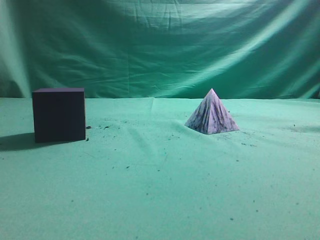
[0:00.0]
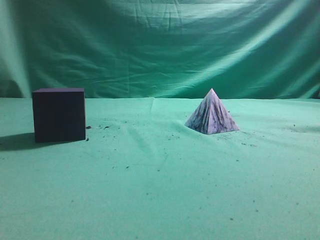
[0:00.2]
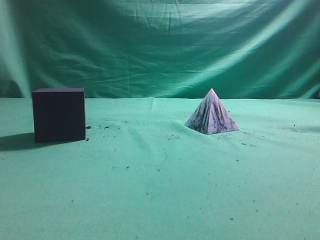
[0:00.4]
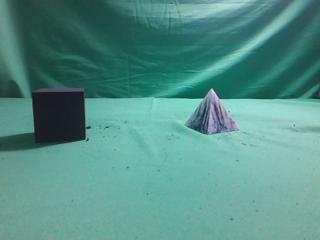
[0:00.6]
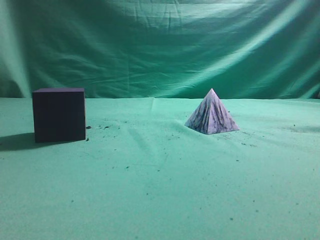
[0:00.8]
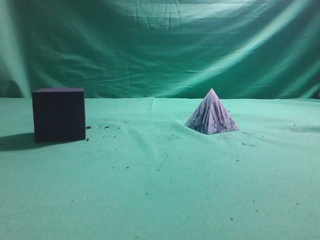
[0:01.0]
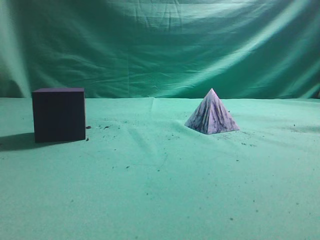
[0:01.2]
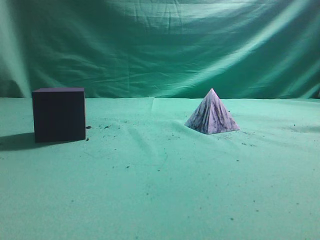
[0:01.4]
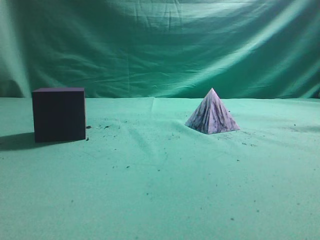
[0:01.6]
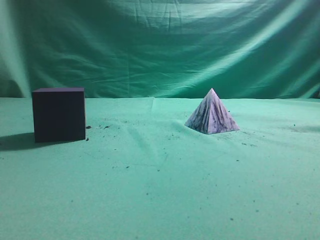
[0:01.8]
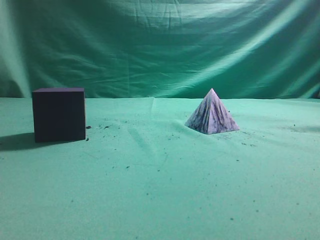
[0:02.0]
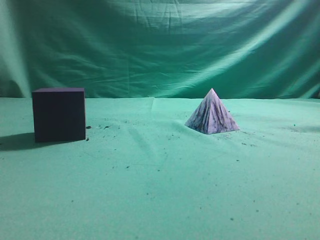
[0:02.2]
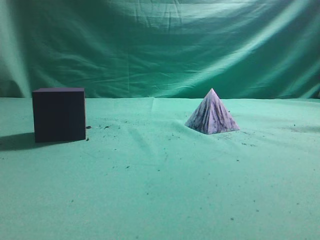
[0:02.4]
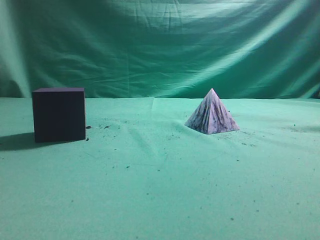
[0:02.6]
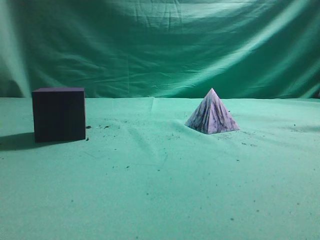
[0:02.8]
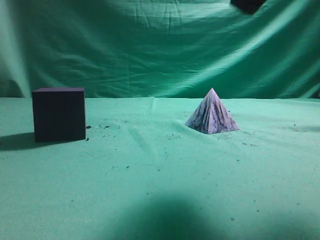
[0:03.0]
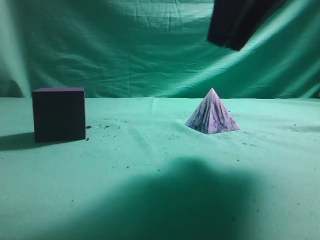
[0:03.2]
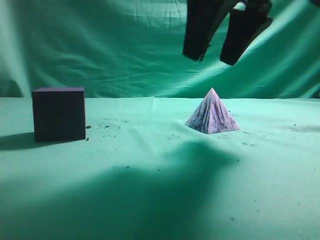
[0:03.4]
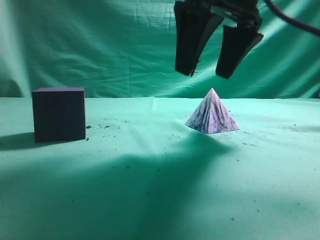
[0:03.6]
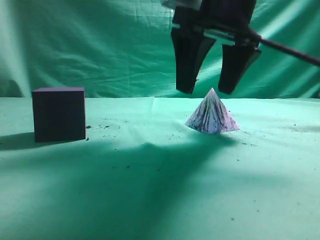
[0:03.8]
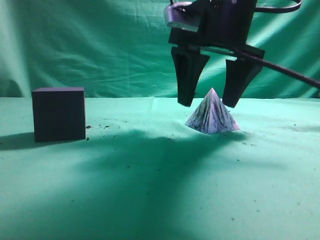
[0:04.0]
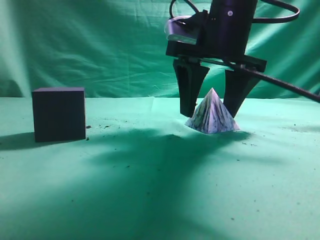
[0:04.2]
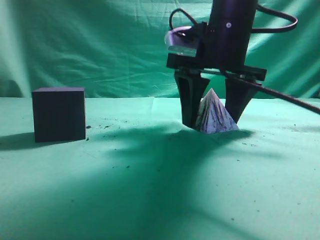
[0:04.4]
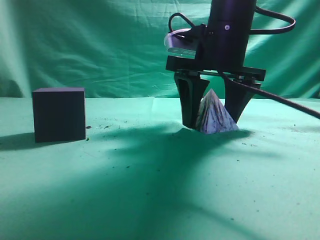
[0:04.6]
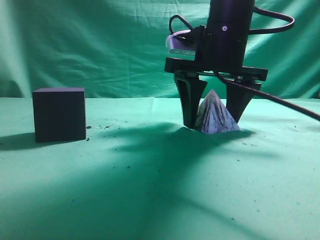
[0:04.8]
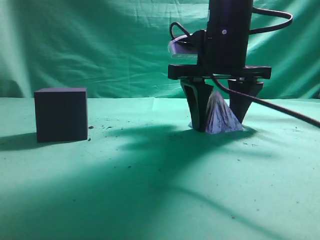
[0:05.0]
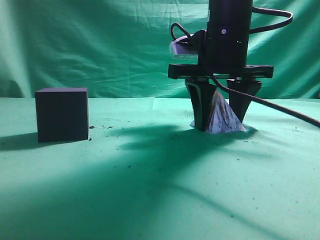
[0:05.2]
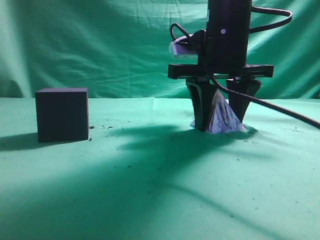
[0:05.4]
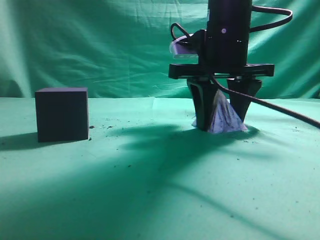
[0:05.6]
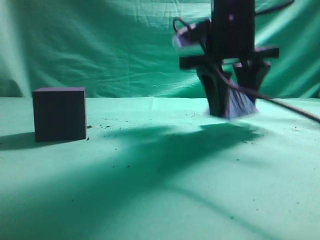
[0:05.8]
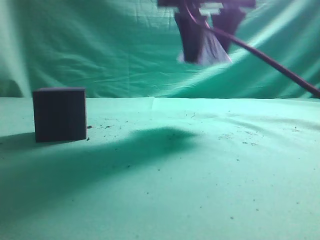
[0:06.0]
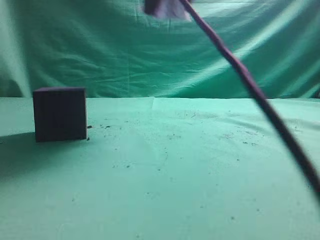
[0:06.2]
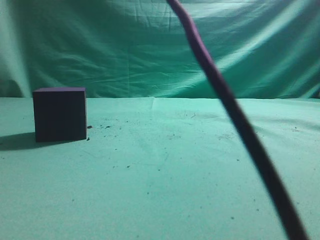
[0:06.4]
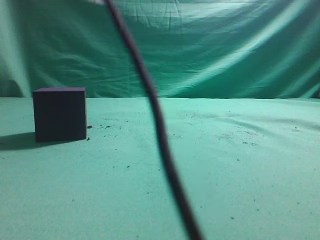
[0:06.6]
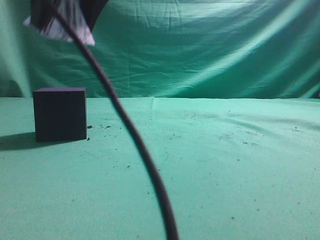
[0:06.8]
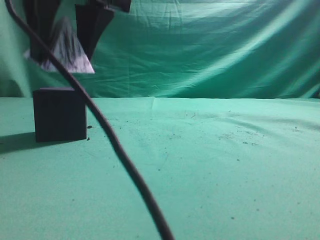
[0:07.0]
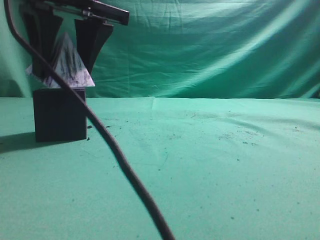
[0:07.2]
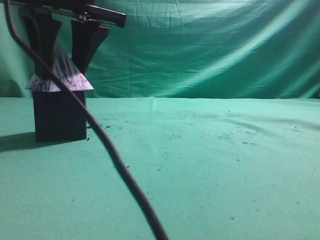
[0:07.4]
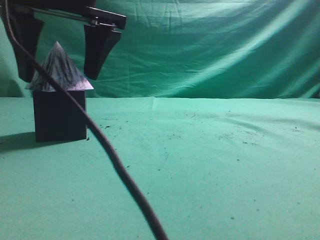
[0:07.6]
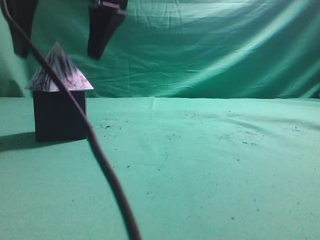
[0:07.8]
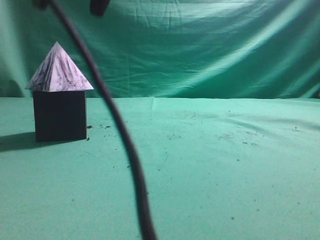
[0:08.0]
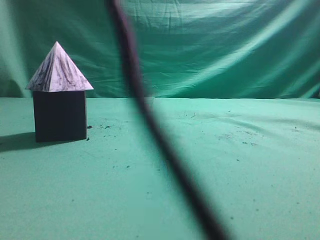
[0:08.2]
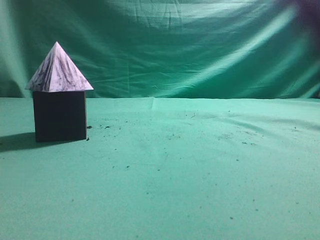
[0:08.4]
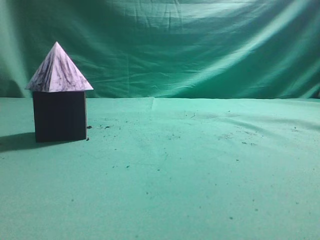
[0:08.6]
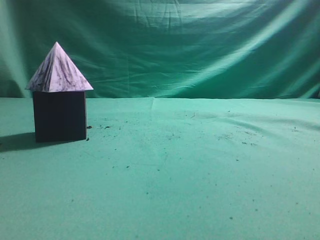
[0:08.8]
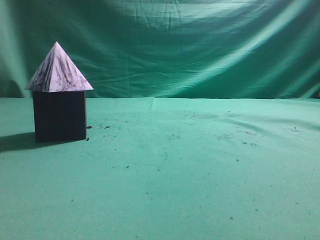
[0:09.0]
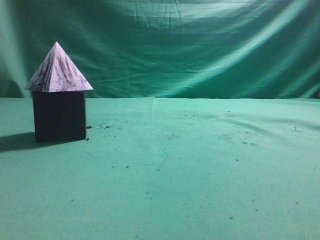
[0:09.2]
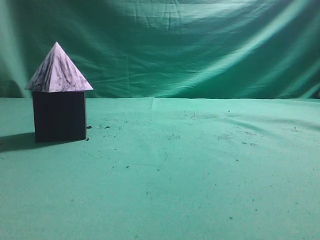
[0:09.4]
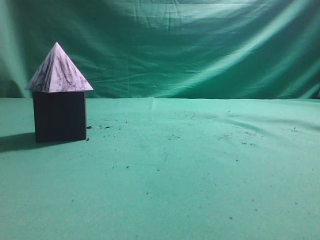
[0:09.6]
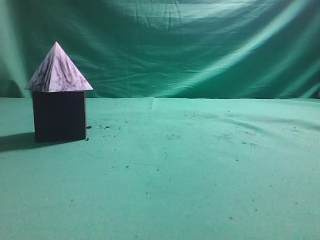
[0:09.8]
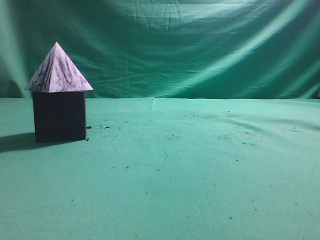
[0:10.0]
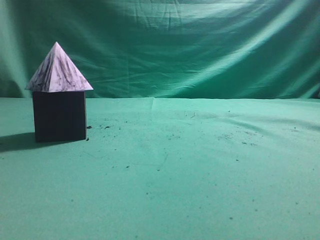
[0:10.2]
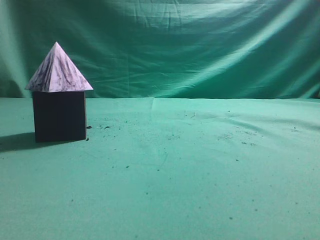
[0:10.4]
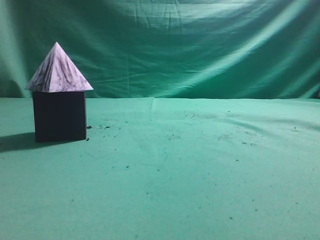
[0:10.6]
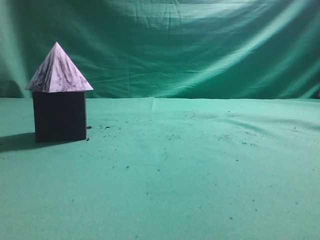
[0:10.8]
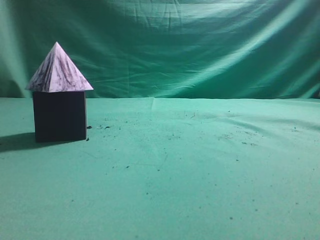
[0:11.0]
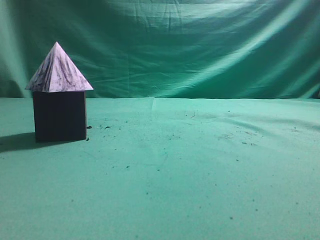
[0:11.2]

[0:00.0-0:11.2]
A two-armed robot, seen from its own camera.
Task of the whole recording: pick up the square pyramid from the table and place it on the cube block.
Step, 0:00.0 to 0:05.8: Grasp the triangular block.
Step, 0:06.0 to 0:07.8: Place the block onto the cube-shaped block.
0:01.6 to 0:03.2: The right gripper moves forward and to the left, roughly 25 cm, and opens.
0:03.2 to 0:04.8: The right gripper heads forward and downward, covering approximately 15 cm, and opens up.
0:04.8 to 0:06.4: The right gripper goes some 20 cm upward and to the left.
0:06.4 to 0:08.0: The right gripper is displaced to the left by approximately 5 cm.
0:08.0 to 0:09.6: The right gripper moves to the right, backward and upward, some 35 cm, and closes up.

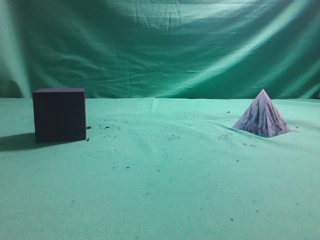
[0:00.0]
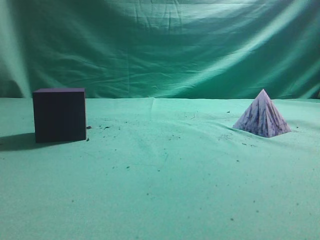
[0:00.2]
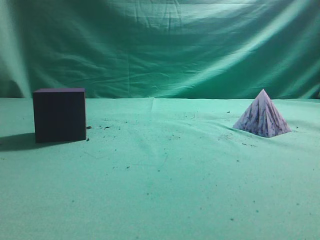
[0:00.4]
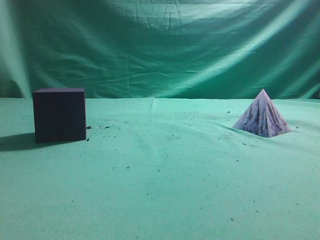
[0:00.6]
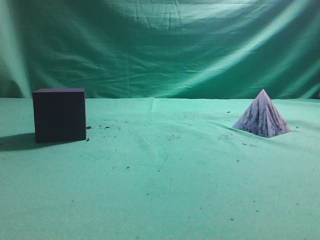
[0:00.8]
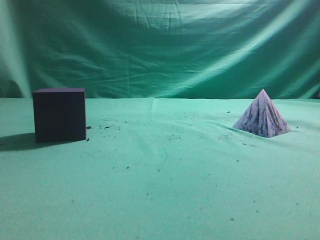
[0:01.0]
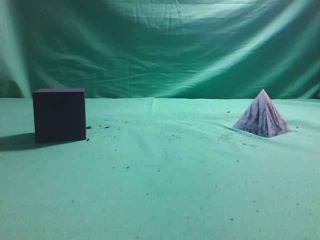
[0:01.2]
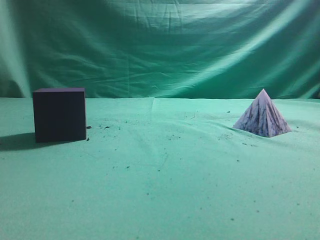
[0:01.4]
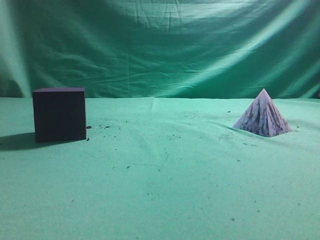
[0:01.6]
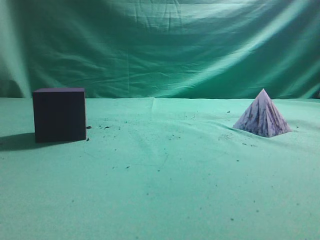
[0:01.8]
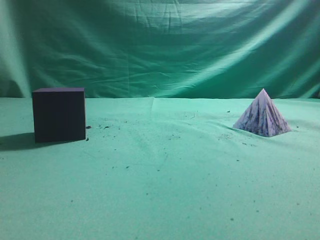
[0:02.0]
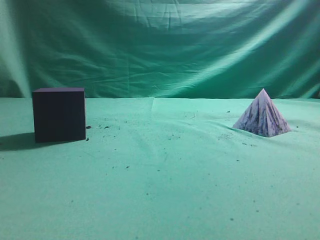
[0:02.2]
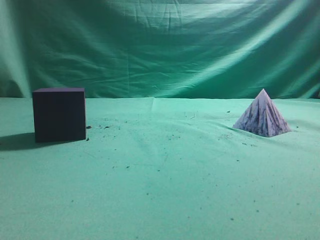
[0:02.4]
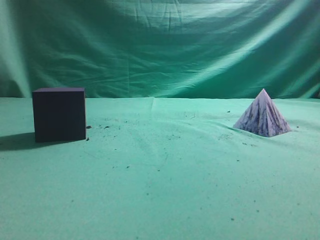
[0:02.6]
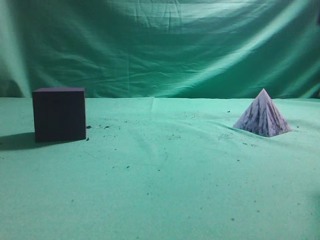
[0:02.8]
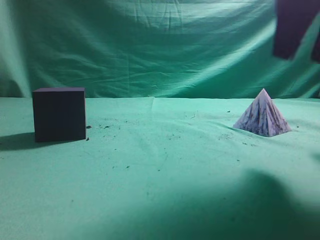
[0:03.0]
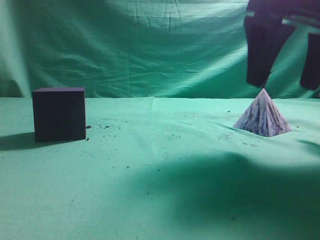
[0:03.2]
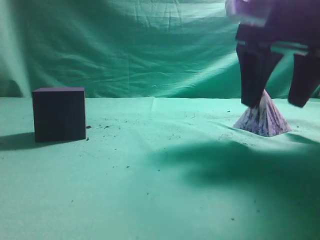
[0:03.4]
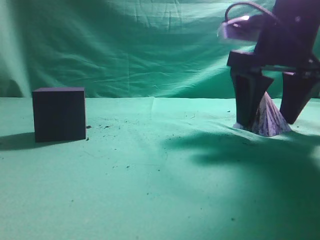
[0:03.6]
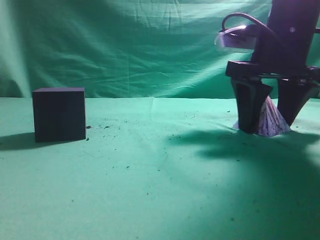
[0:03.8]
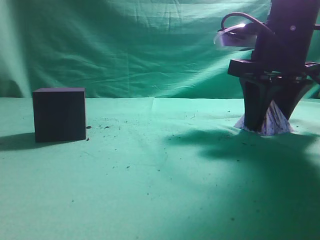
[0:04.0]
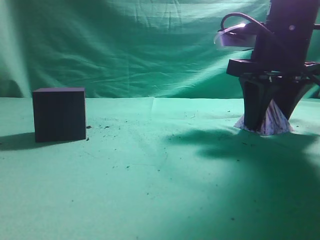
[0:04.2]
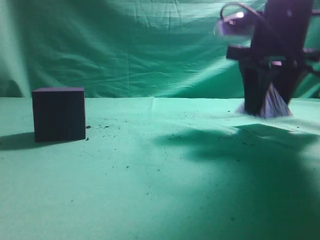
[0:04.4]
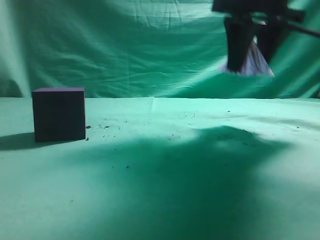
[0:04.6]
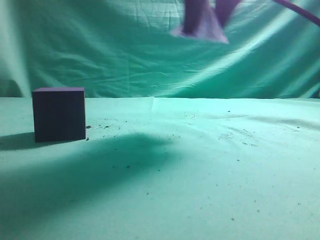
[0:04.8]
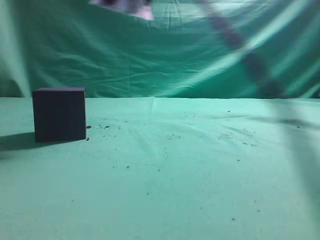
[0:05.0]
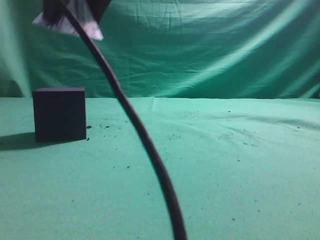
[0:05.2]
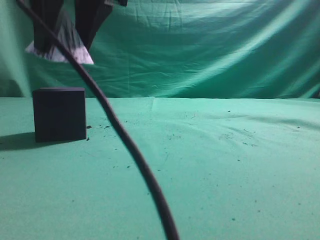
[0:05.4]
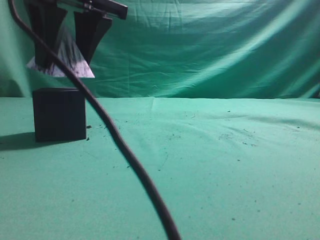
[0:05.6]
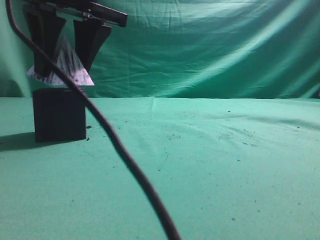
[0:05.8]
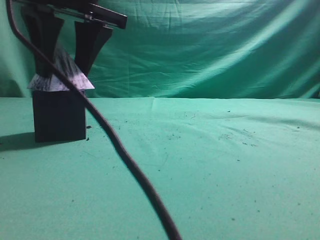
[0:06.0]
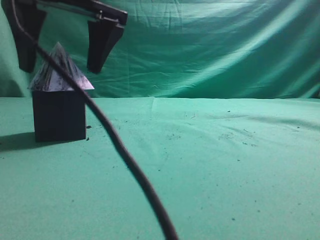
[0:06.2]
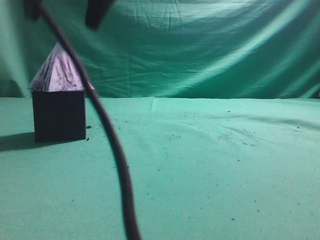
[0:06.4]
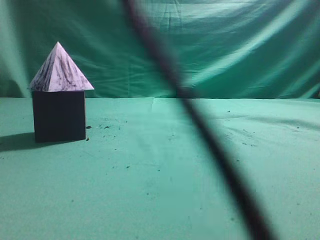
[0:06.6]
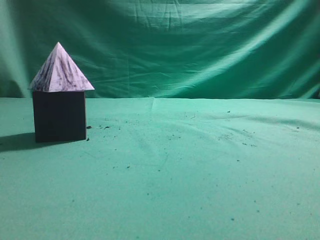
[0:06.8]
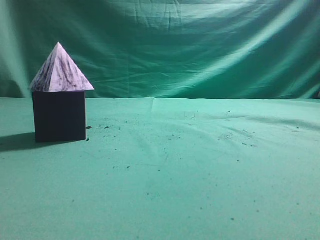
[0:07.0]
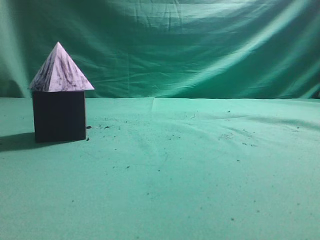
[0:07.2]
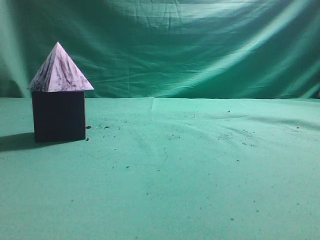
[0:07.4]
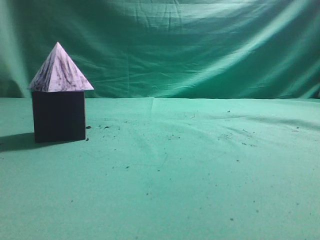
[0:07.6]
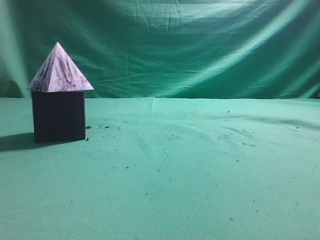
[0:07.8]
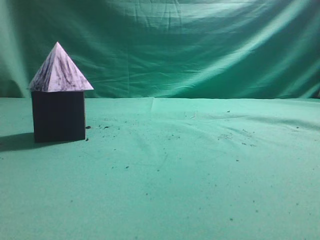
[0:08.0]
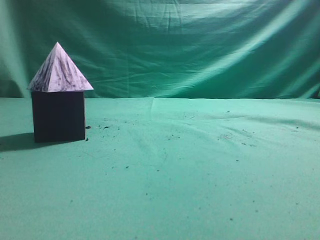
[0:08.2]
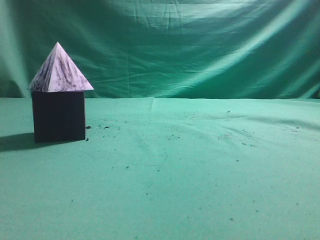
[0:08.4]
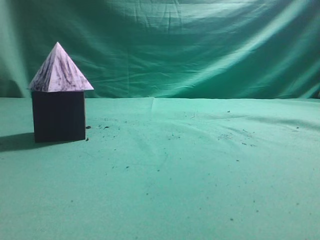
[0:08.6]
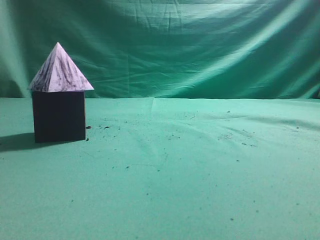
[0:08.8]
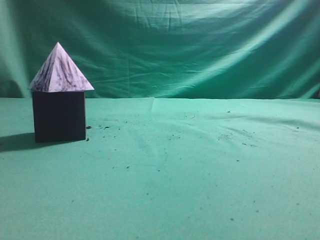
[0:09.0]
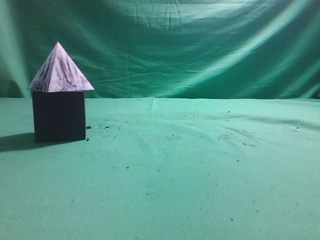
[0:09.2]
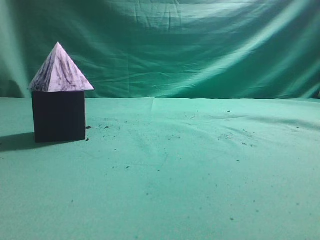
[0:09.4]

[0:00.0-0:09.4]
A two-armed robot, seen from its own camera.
Task of the whole recording: pick up the square pyramid from the table and place it on the cube block.
Step, 0:00.0 to 0:04.4: Grasp the triangular block.
Step, 0:04.6 to 0:06.2: Place the block onto the cube-shaped block.
0:01.6 to 0:03.2: The right gripper goes about 25 cm forward and to the left, and opens.
0:03.2 to 0:04.8: The right gripper travels to the left, forward and upward by approximately 10 cm, and closes up.
0:04.8 to 0:06.2: The right gripper moves to the left, roughly 20 cm, and opens up.
0:06.2 to 0:07.8: The right gripper shifts approximately 40 cm to the right, backward and upward, and closes.
